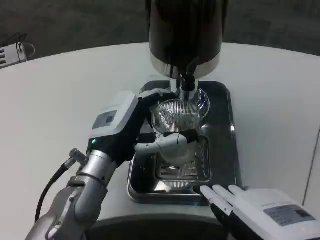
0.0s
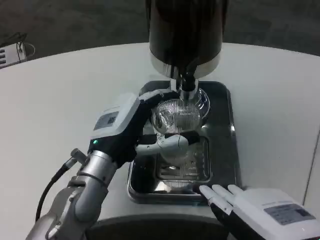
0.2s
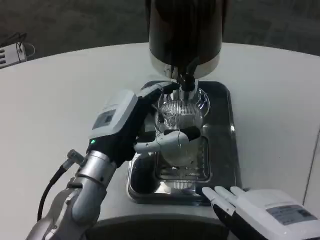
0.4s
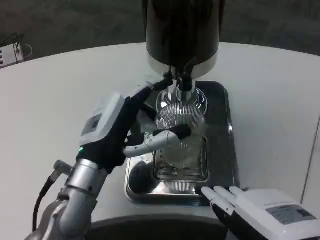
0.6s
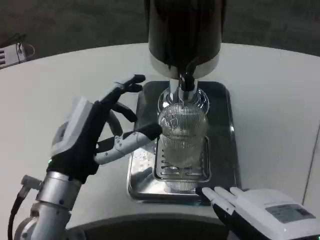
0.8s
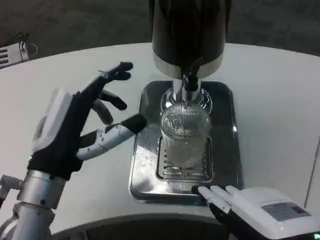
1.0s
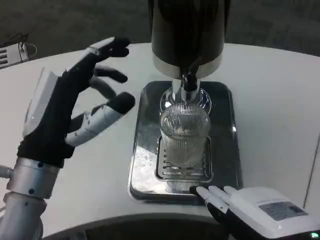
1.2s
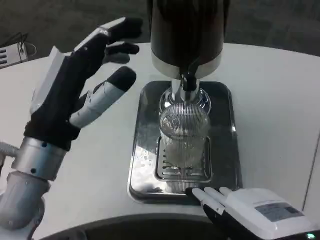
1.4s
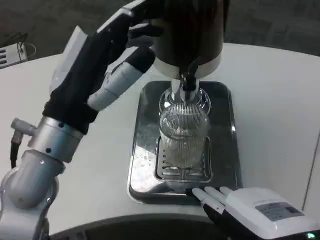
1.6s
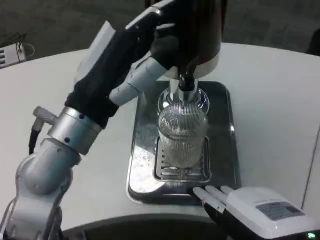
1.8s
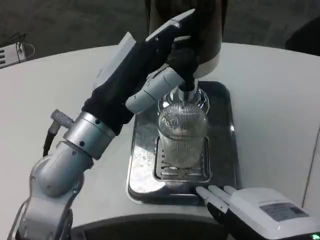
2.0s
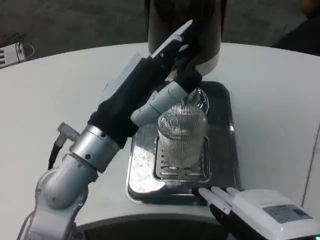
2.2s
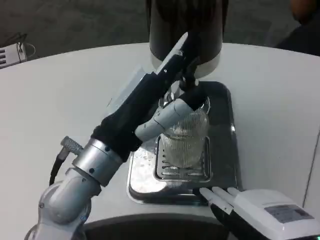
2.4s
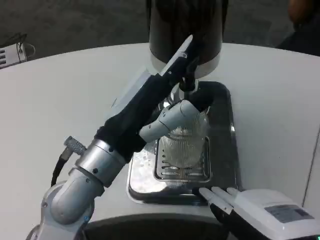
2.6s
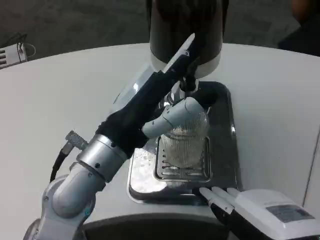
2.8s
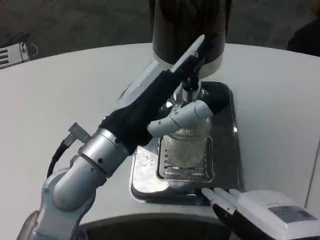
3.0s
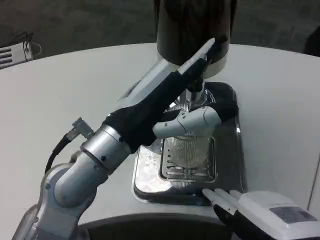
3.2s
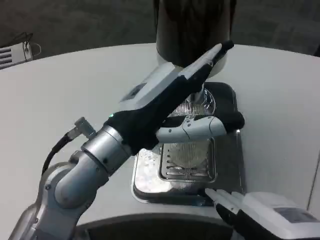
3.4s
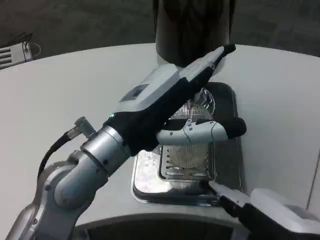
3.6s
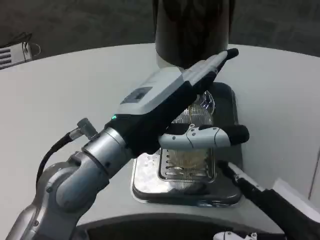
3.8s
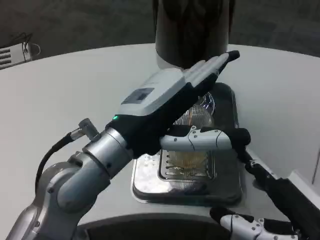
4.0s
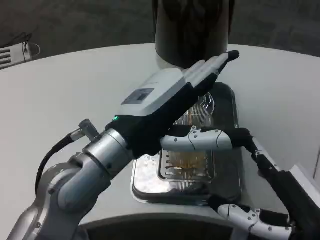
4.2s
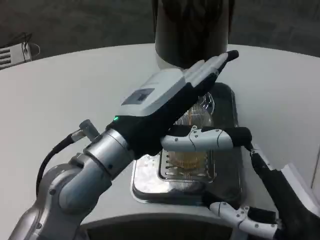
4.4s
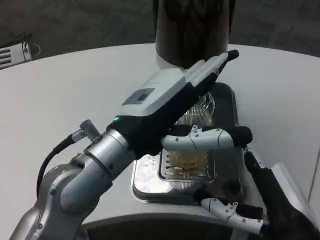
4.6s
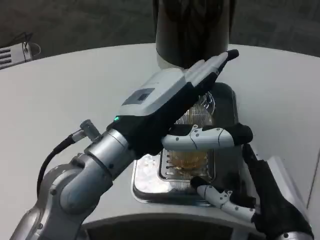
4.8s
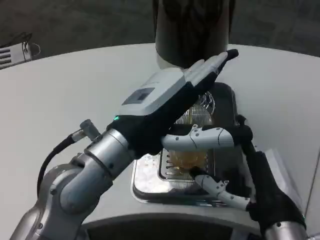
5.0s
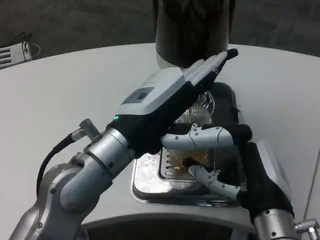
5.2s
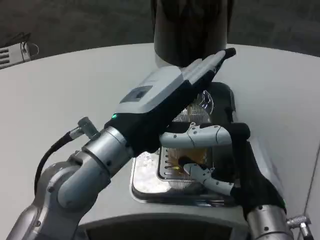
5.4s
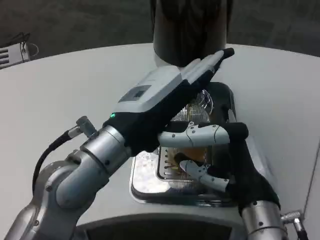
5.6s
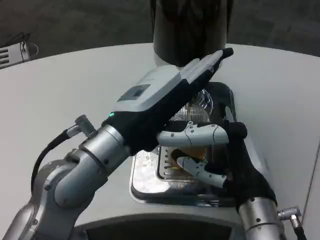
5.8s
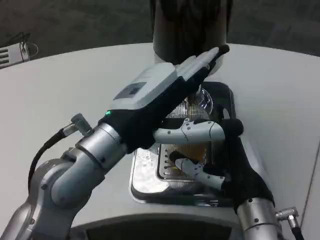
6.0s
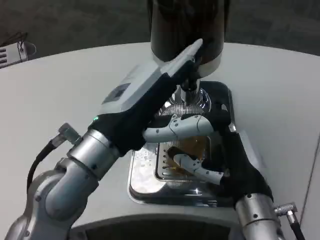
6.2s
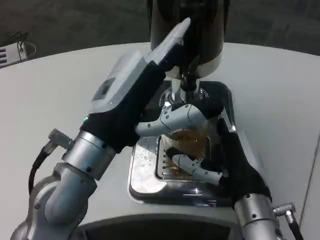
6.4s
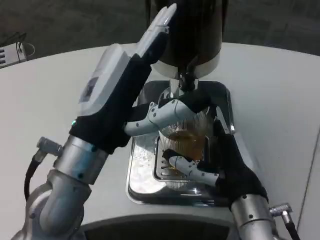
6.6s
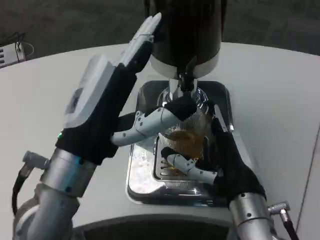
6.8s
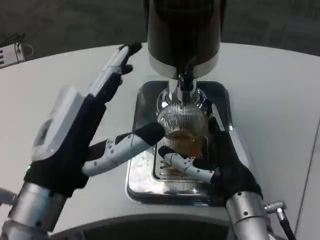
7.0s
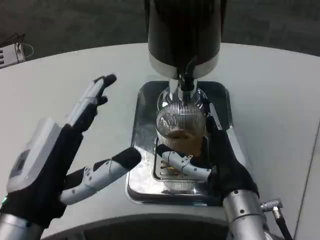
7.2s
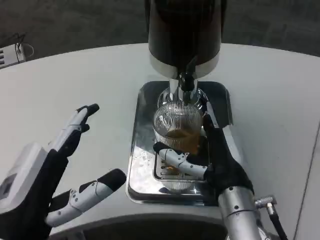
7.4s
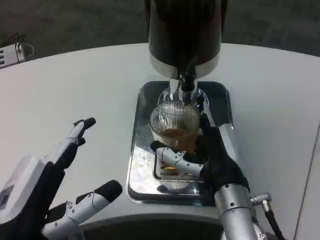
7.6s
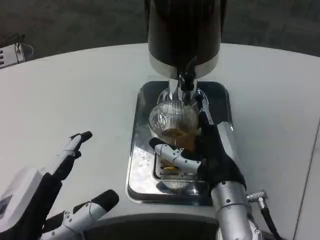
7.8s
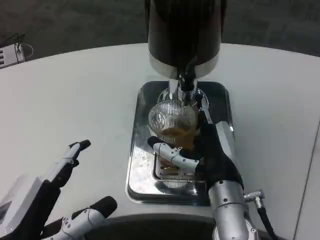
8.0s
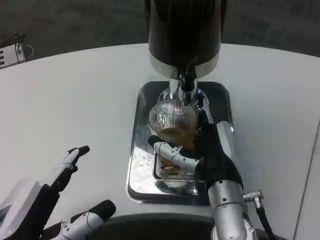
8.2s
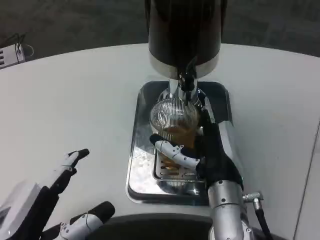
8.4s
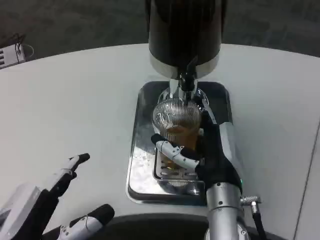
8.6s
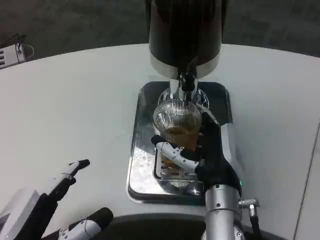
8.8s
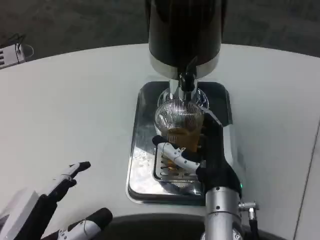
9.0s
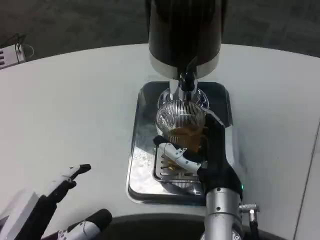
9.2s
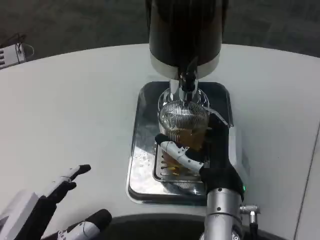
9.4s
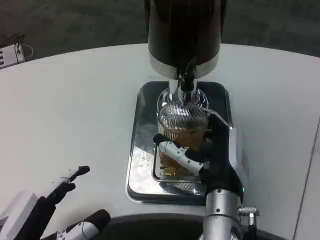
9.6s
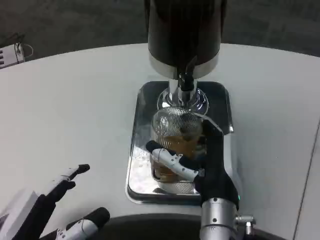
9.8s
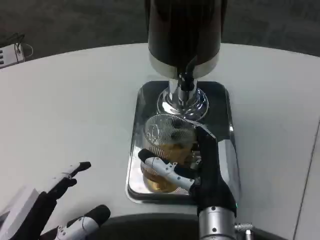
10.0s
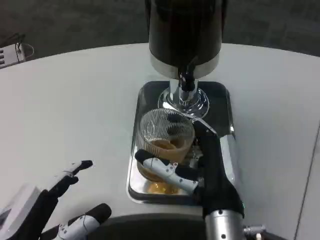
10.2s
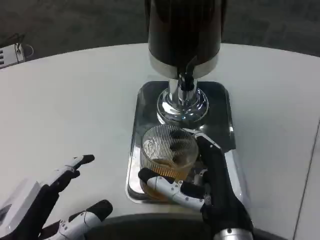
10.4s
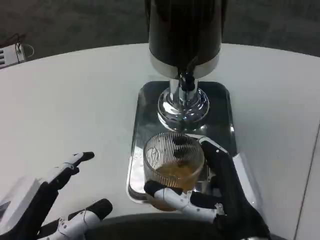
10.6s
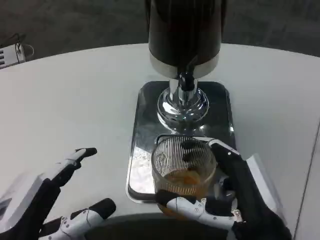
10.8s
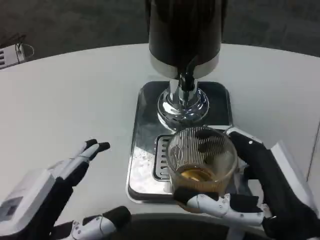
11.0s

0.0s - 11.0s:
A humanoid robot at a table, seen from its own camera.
Task of the whole recording: Grasp the cup under the faucet to collect the drink, then remove the cup.
0.0s - 1.6s: The left hand travels upward and backward by roughly 10 cm.
3.2s - 4.8s: The right hand is displaced downward and forward by approximately 10 cm.
4.8s - 6.2s: The right hand moves forward, roughly 5 cm.
6.2s - 7.8s: The left hand is displaced backward, downward and to the left by about 15 cm.
7.8s - 9.4s: The hands move only a little.
9.4s - 11.0s: The right hand goes some 15 cm backward and to the right.

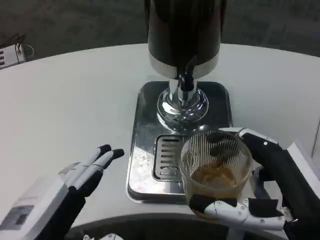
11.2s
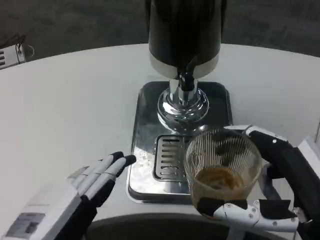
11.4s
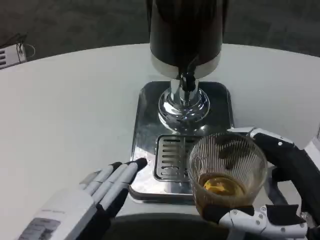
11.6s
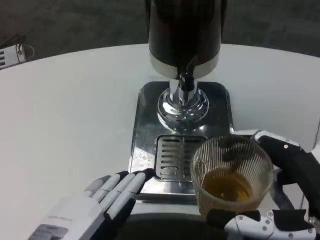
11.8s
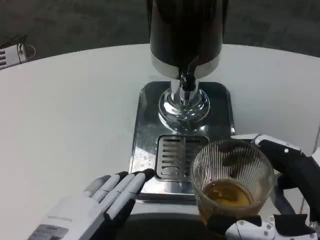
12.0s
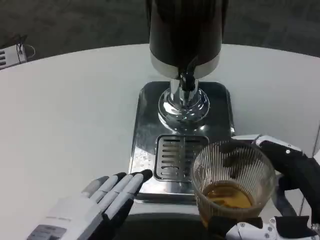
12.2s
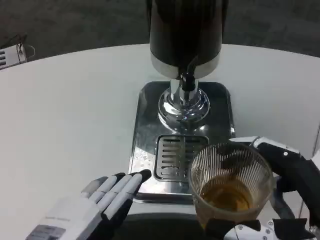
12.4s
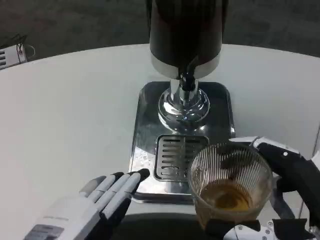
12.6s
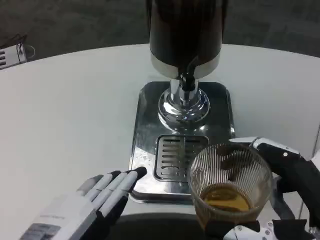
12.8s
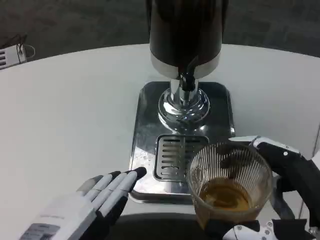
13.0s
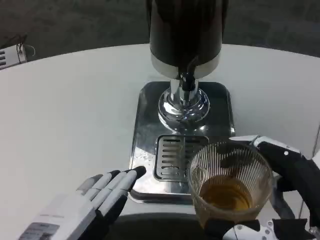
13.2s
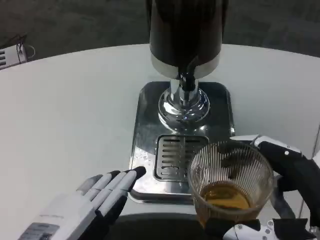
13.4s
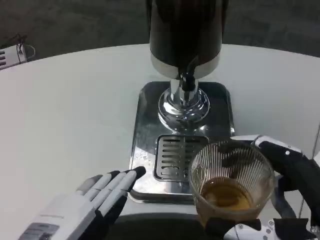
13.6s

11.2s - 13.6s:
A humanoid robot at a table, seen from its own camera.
Task of the whole recording: Grasp the cup under the faucet to collect the drink, then remove the cup.
12.4s - 13.6s: Both hands stay put.

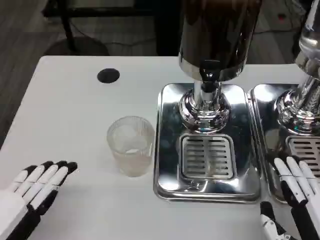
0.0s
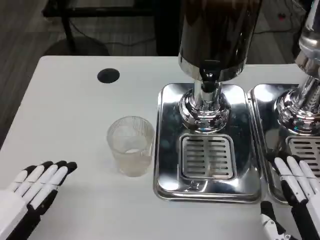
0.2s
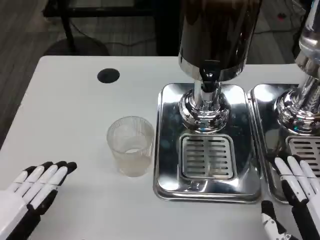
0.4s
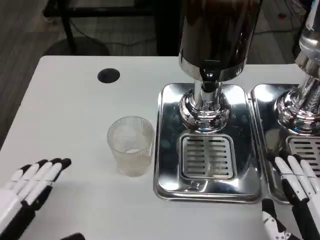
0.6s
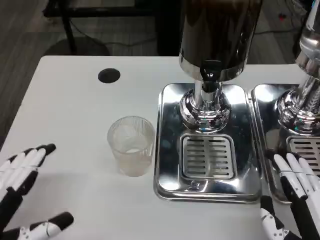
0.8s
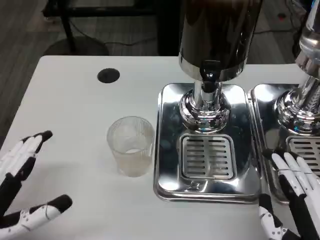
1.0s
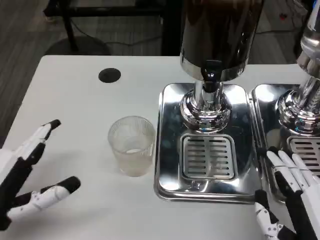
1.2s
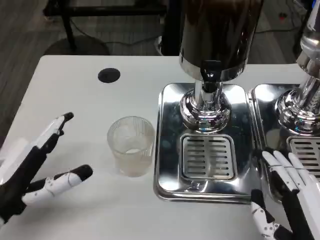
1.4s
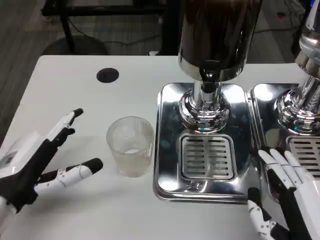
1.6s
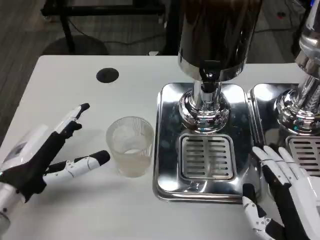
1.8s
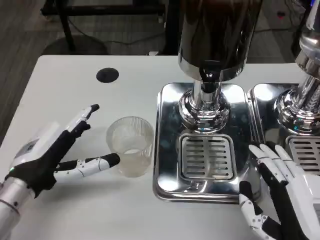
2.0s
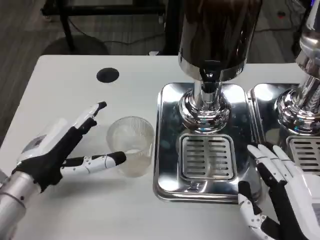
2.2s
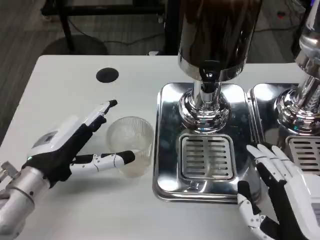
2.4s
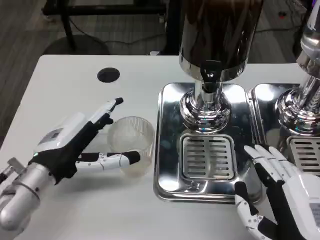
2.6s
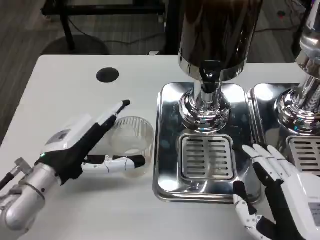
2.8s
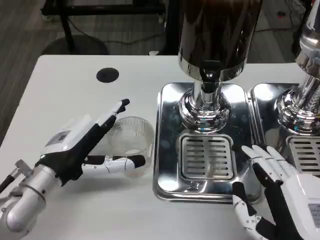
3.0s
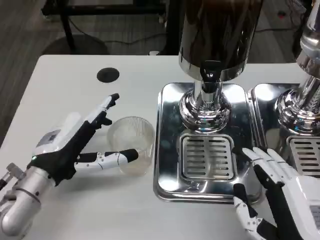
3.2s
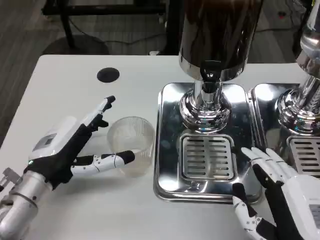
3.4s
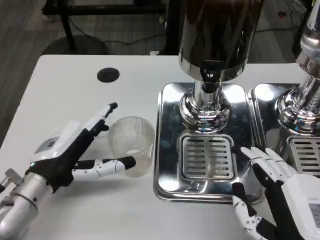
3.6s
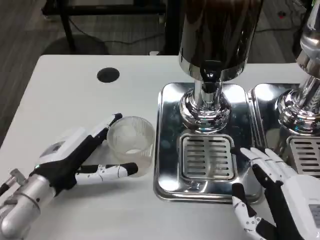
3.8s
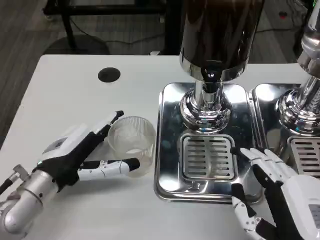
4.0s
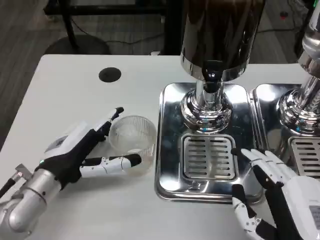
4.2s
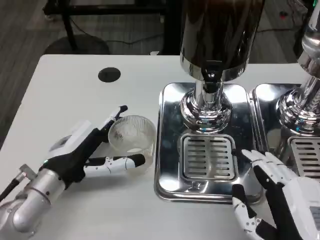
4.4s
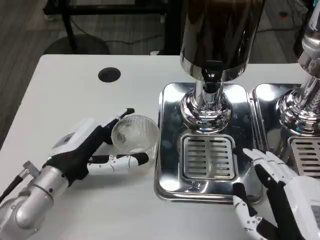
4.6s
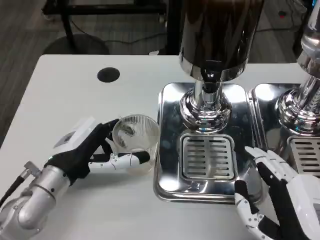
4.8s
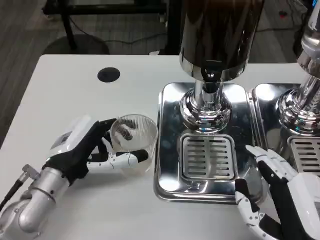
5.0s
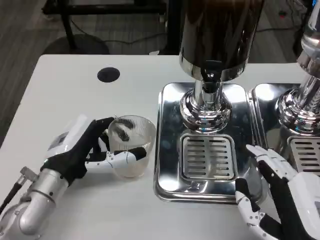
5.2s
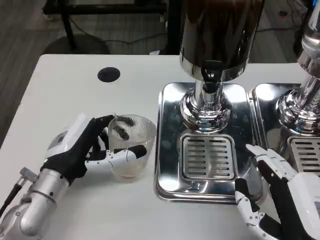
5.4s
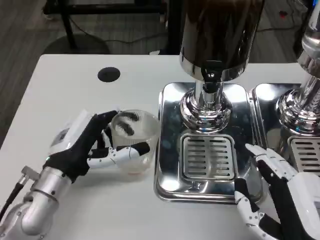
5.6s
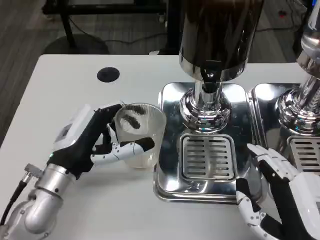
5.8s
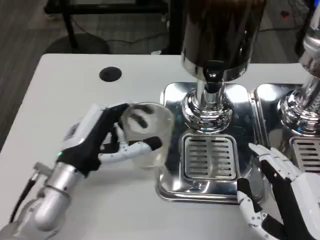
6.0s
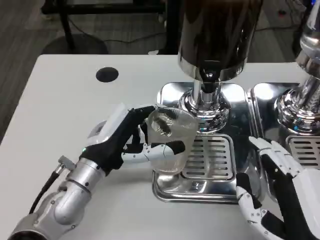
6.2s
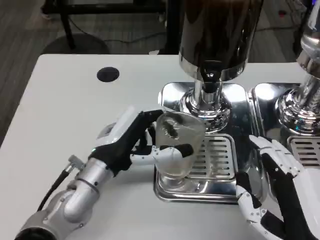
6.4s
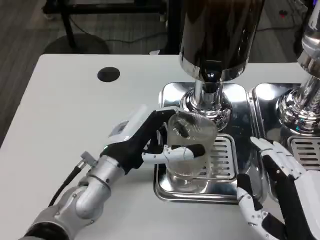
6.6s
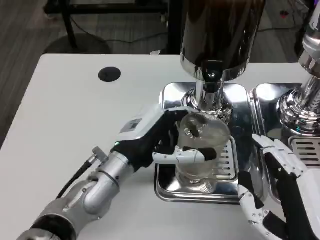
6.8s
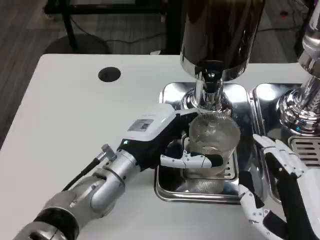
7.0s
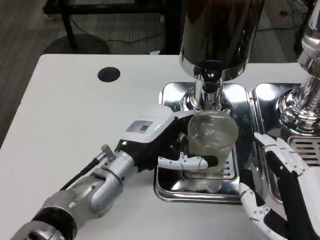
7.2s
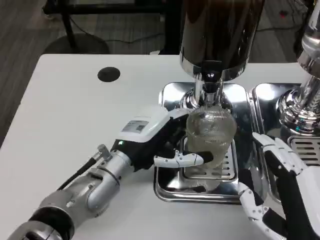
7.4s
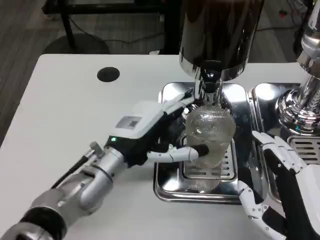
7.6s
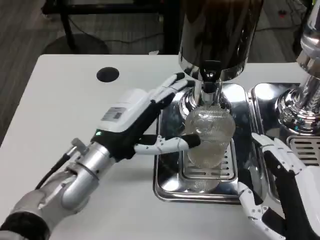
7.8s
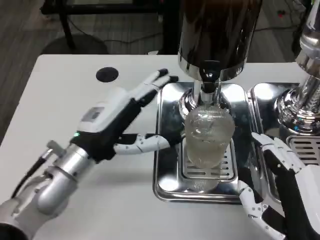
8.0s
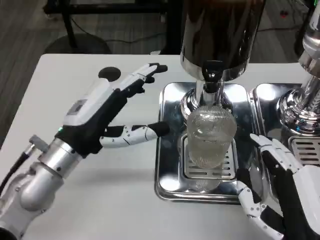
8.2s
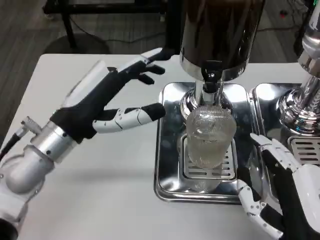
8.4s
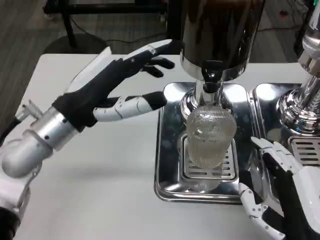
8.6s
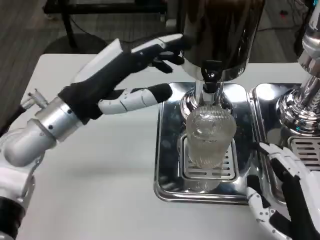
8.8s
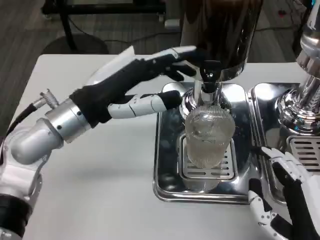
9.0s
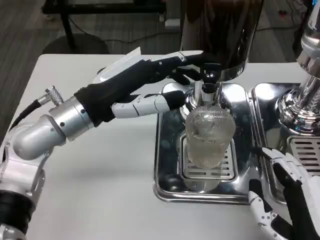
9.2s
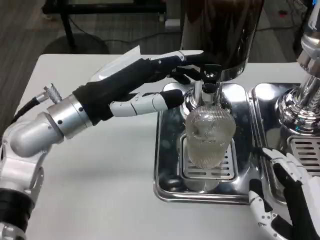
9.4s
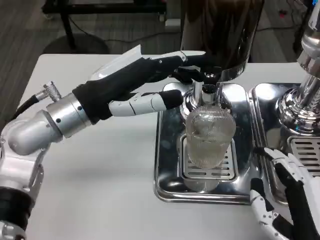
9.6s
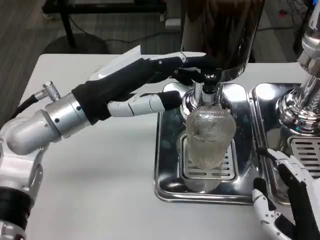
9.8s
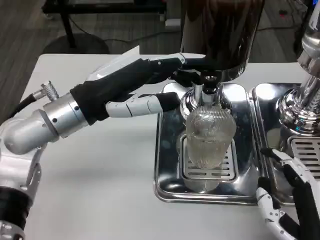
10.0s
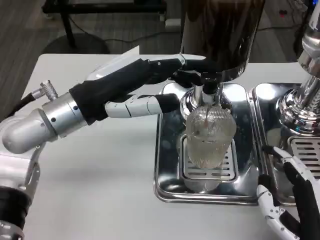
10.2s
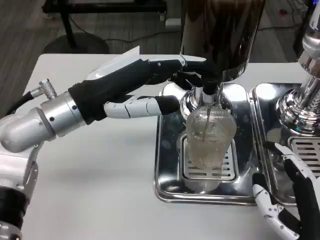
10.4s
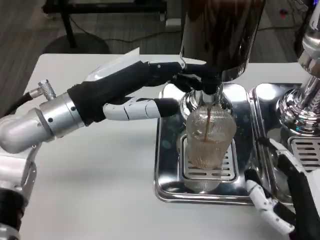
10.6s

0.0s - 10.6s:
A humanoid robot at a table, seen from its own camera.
Task of the whole recording: Grasp the cup under the faucet to collect the drink, then remove the cup.
0.0s - 1.6s: The left hand moves forward, roughly 10 cm.
1.6s - 3.0s: The left hand goes approximately 5 cm forward.
3.0s - 4.6s: There are only small adjustments of the hands.
6.0s - 7.6s: The left hand ends up approximately 5 cm from where it was.
7.6s - 9.0s: The left hand travels upward and to the left by some 10 cm.
